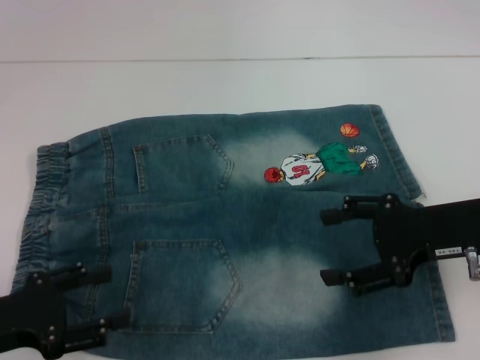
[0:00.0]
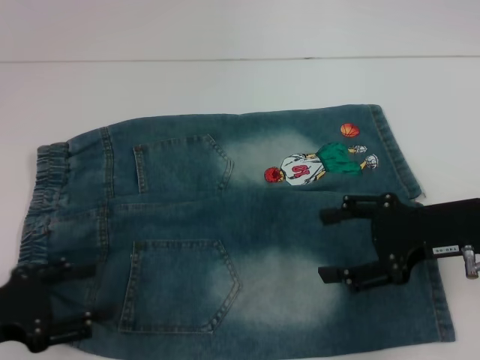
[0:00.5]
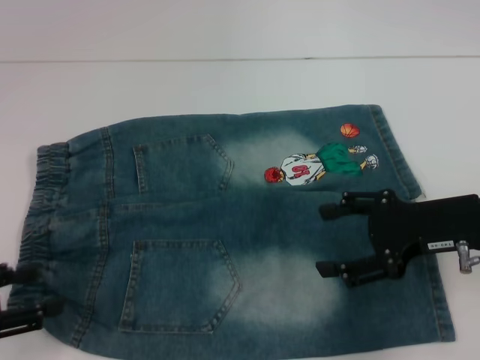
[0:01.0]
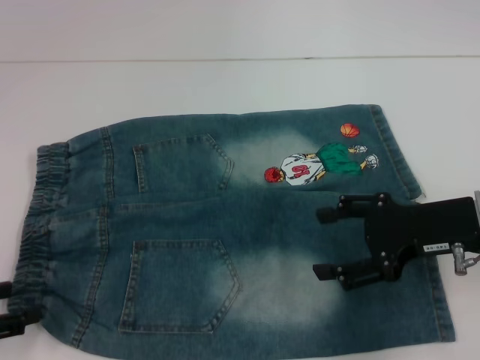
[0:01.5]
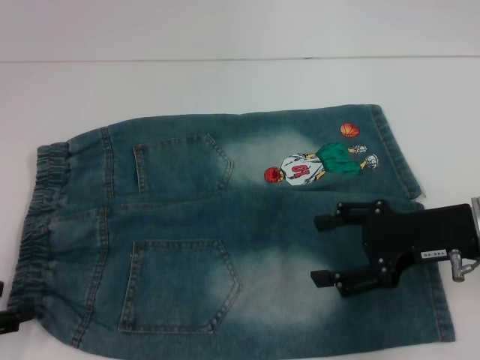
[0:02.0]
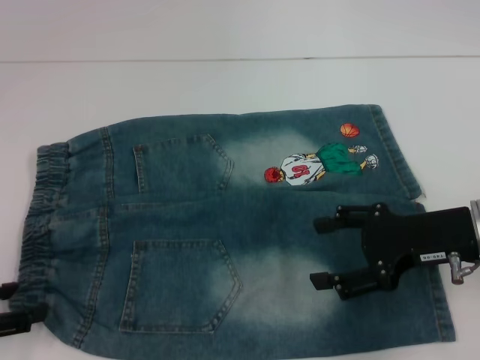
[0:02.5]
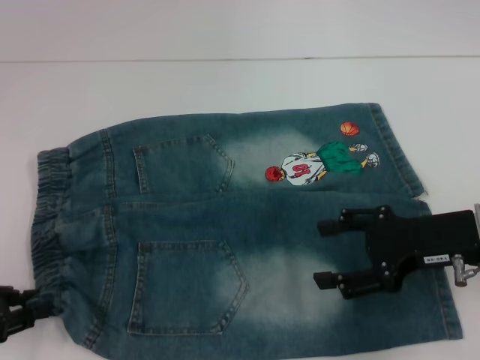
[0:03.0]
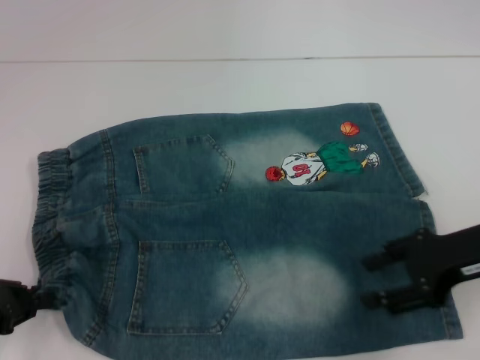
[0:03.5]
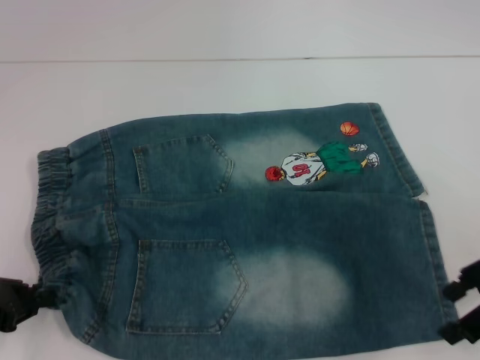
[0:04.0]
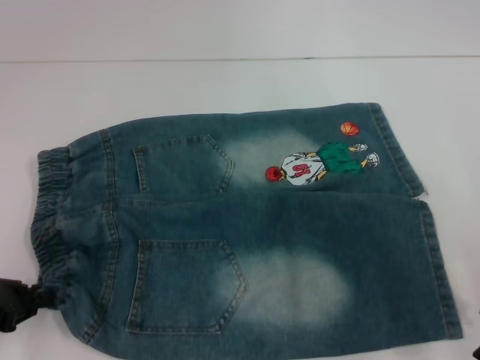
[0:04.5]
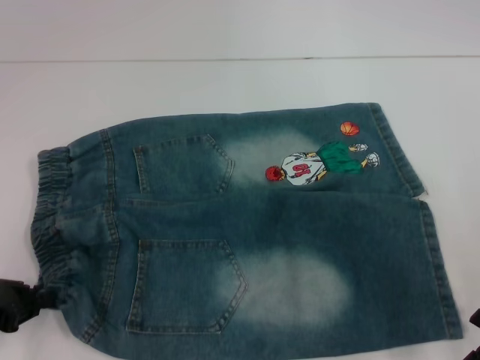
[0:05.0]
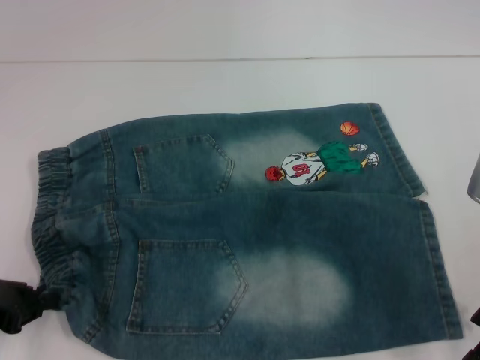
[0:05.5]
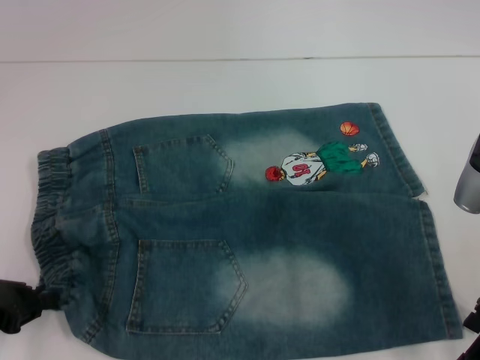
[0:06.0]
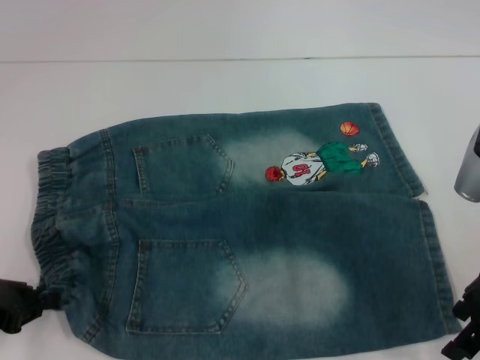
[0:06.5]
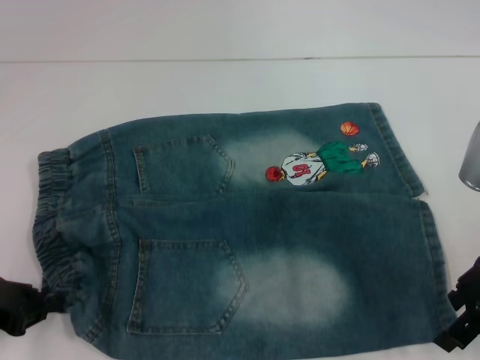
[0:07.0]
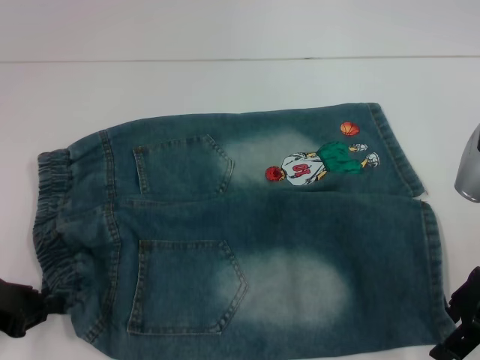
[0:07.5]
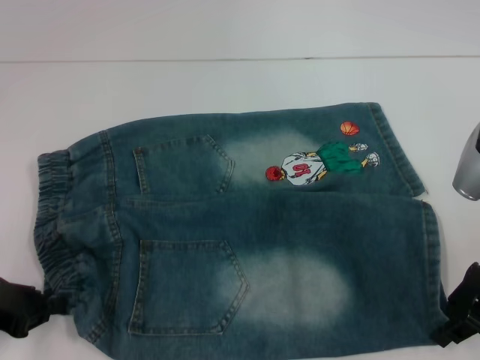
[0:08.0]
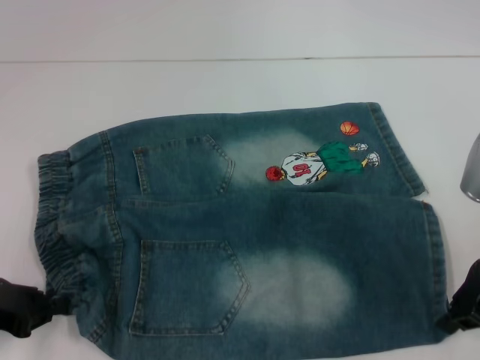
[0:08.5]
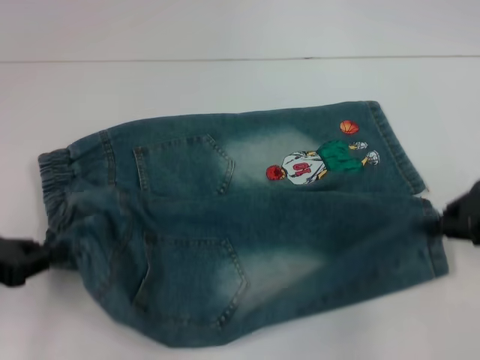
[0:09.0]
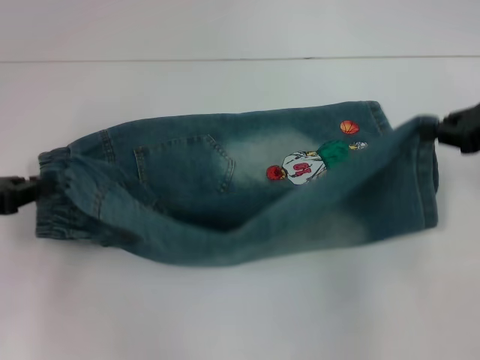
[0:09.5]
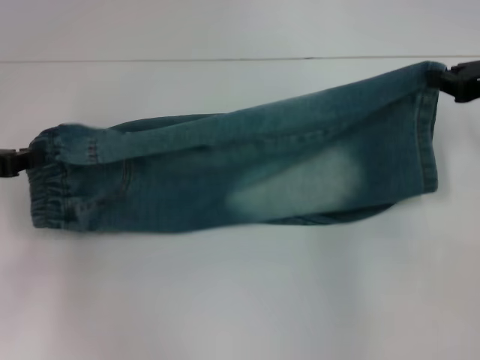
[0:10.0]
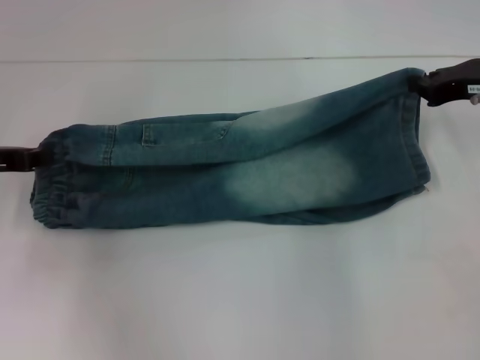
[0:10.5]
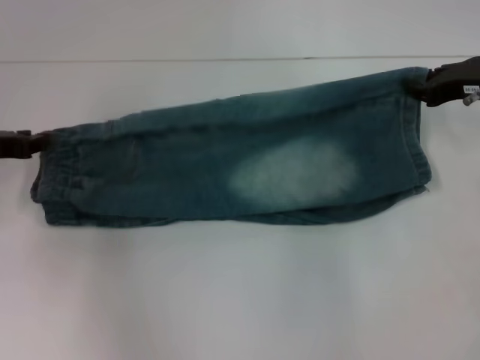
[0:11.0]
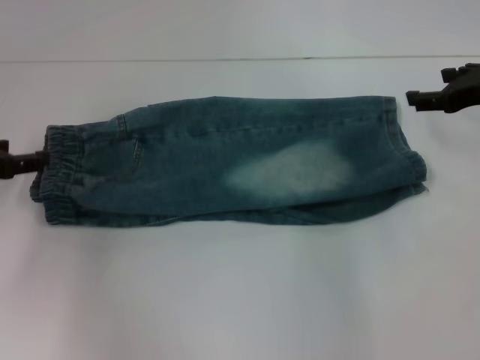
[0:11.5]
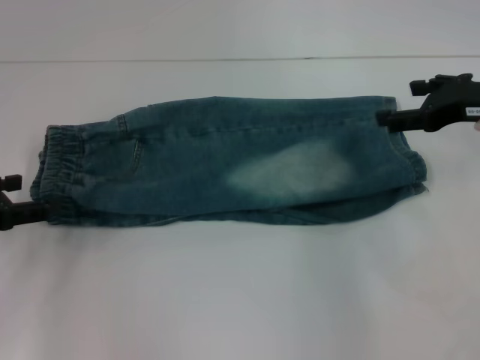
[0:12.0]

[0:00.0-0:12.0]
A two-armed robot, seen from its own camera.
Step, 0:00.0 to 0:03.0: Hold the lower left waistband with your left hand.
Step, 0:03.5 to 0:08.0: Grab the lower right pant leg with your right hand.
Step, 0:08.5 to 0:11.0: Fold upward with your left hand.
0:00.0 to 0:02.0: The left gripper is displaced to the left by roughly 5 cm.
0:02.0 to 0:04.0: The left gripper closes. Meanwhile the right gripper goes some 5 cm to the right.
0:04.0 to 0:06.0: The grippers make only small movements.
0:06.0 to 0:08.0: The right gripper closes its fingers.
0:08.0 to 0:10.0: The left gripper goes about 10 cm forward and upward. Meanwhile the right gripper is displaced forward and to the right by some 10 cm, and closes up.
0:10.0 to 0:12.0: The left gripper opens its fingers. The right gripper opens its fingers.

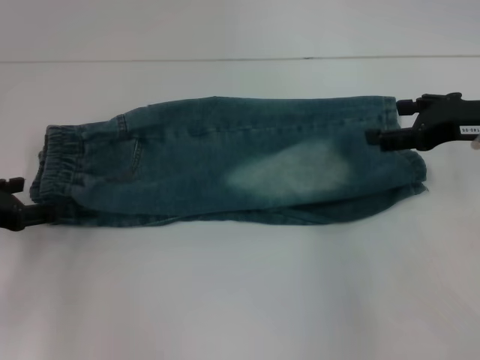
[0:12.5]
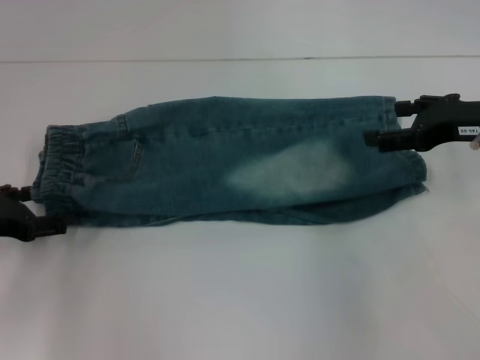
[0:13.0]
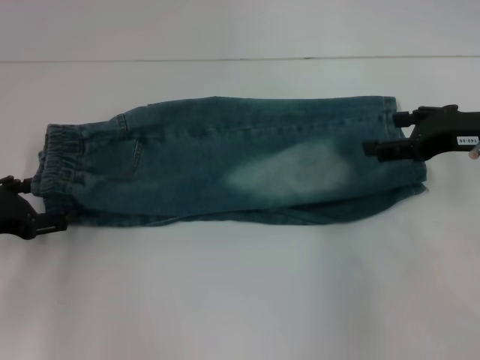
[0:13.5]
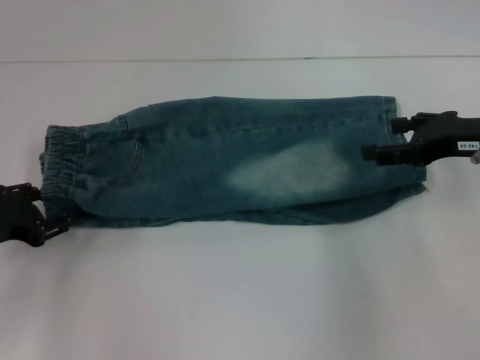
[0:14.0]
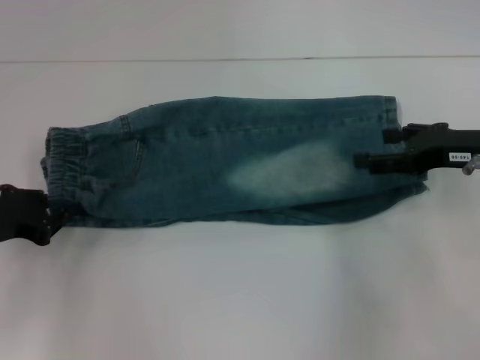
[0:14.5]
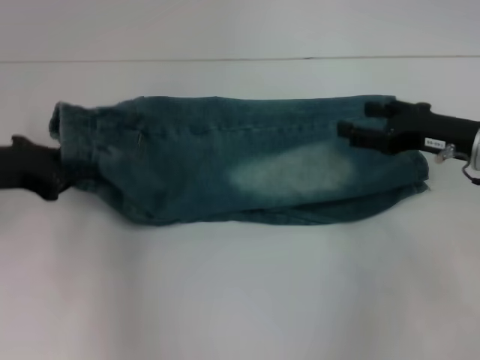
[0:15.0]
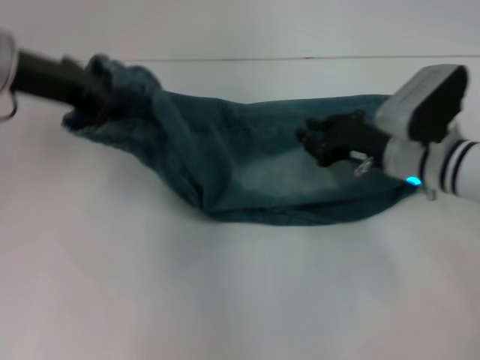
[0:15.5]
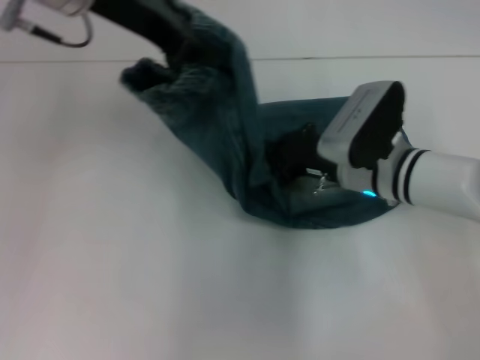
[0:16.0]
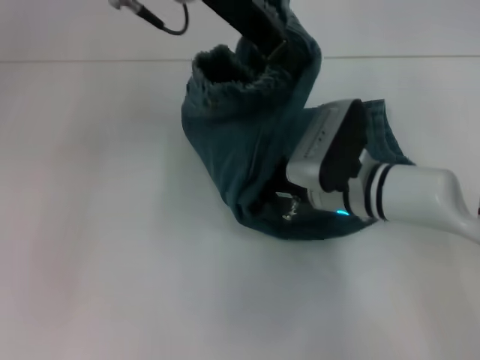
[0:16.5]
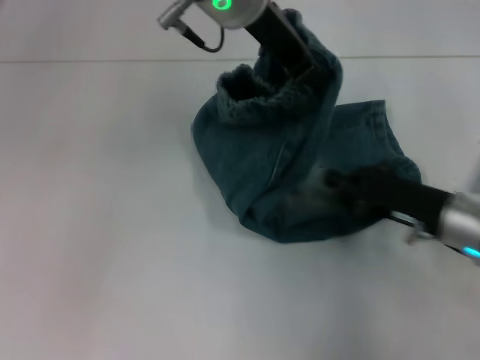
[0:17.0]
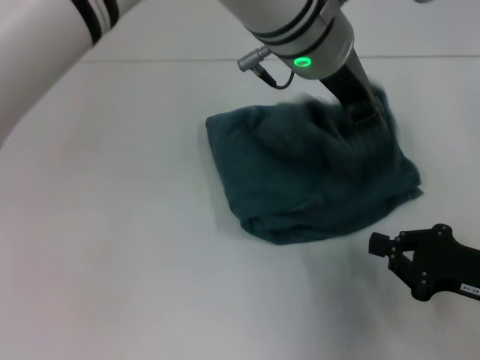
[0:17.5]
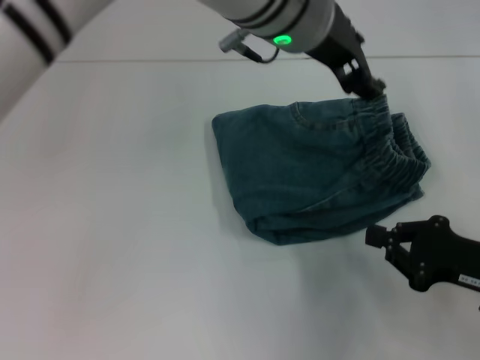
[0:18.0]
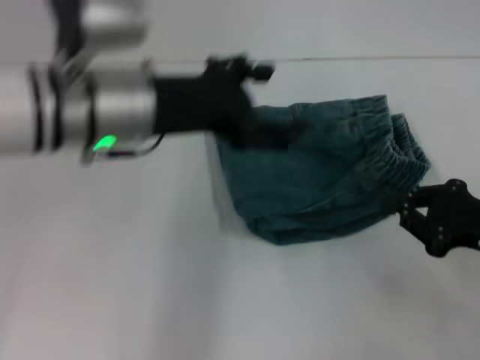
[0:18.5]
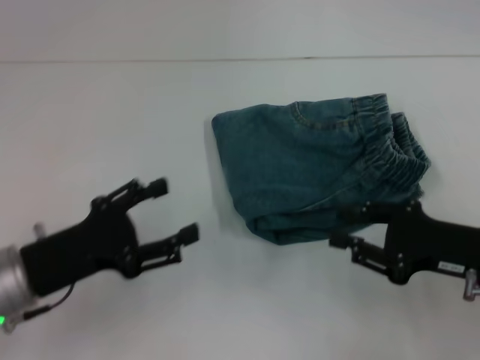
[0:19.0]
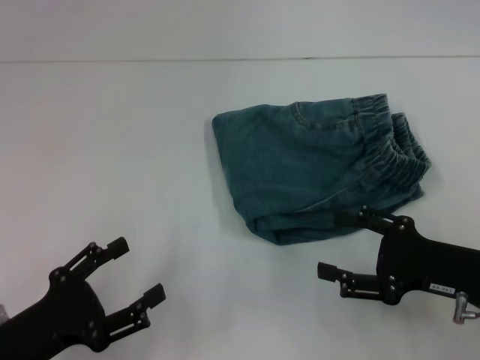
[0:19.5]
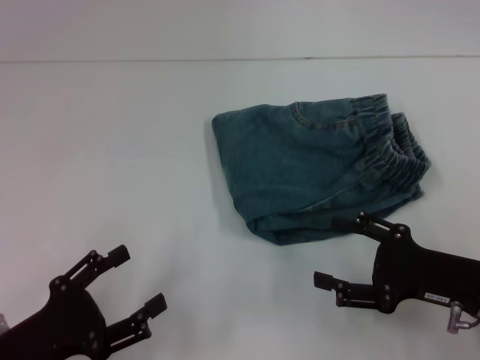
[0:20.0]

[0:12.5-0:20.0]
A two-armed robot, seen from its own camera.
Step, 0:14.5 to 0:16.5: Press the middle of the pants with your right hand.
Step, 0:17.0 to 0:17.5: Fold to the right with your left hand.
0:12.5 to 0:14.5: The left gripper closes.
0:14.5 to 0:16.5: The left gripper shifts roughly 35 cm to the right, upward and forward; the right gripper travels to the left and downward by about 20 cm, and closes.
0:16.5 to 0:18.0: The left gripper shifts about 10 cm to the right, and opens, while the right gripper travels to the right and backward by some 20 cm.
0:18.0 to 0:20.0: The right gripper opens up; the left gripper goes approximately 40 cm to the left, backward and downward, and opens its fingers.

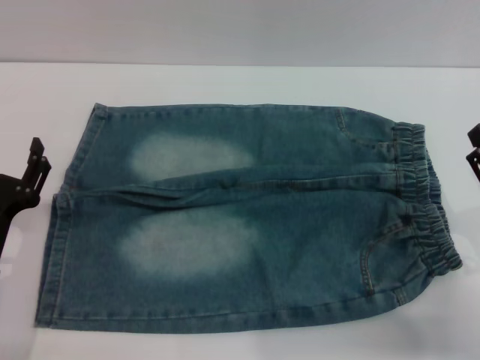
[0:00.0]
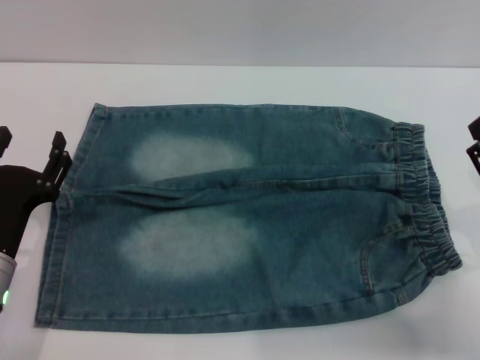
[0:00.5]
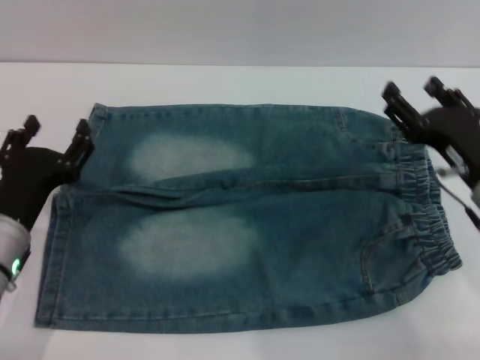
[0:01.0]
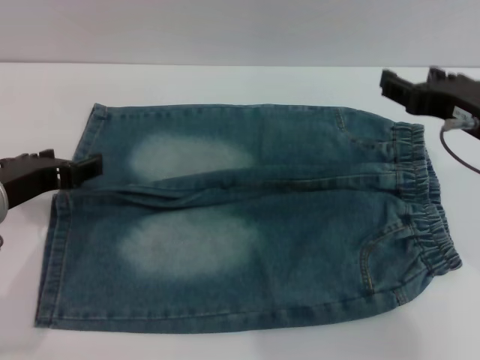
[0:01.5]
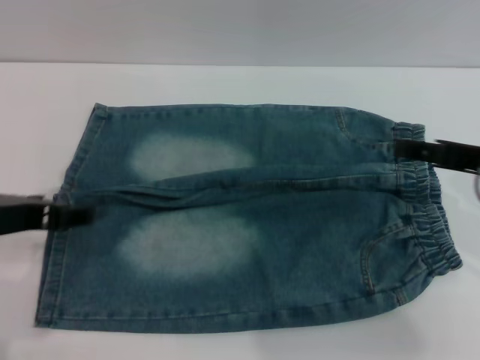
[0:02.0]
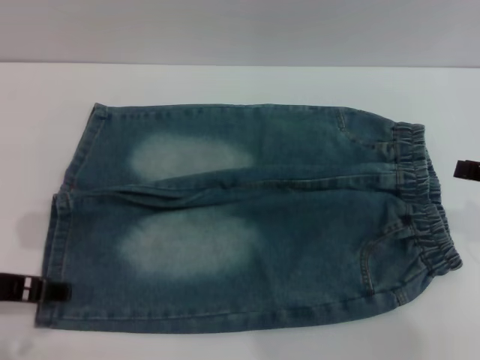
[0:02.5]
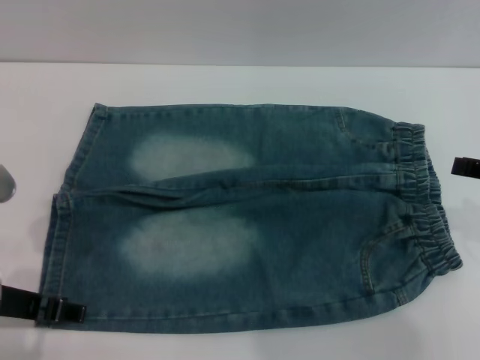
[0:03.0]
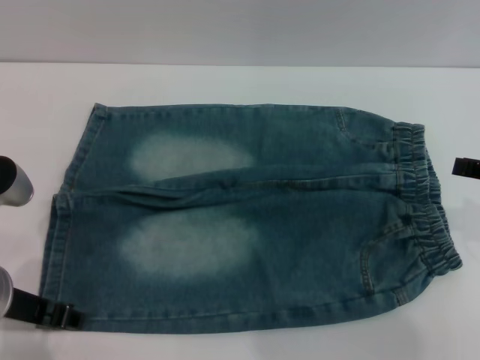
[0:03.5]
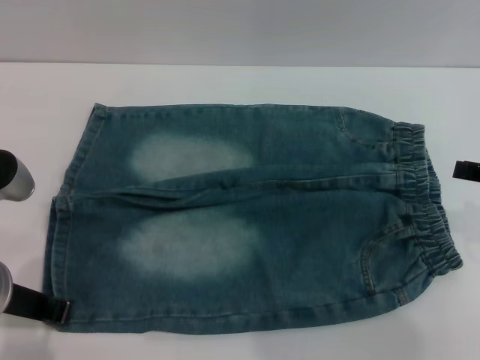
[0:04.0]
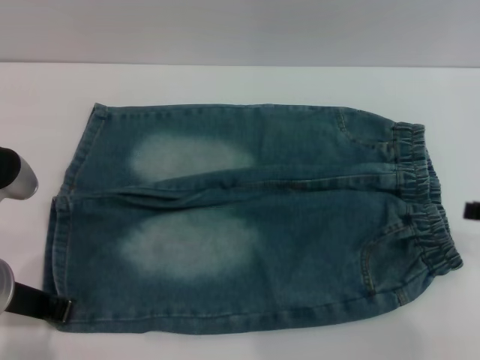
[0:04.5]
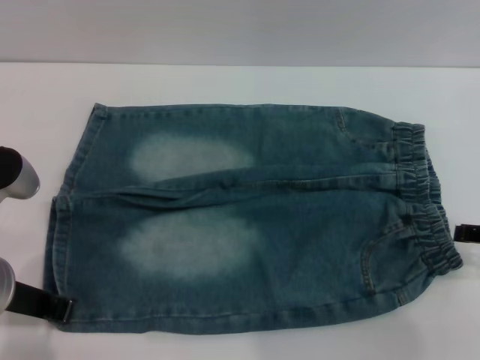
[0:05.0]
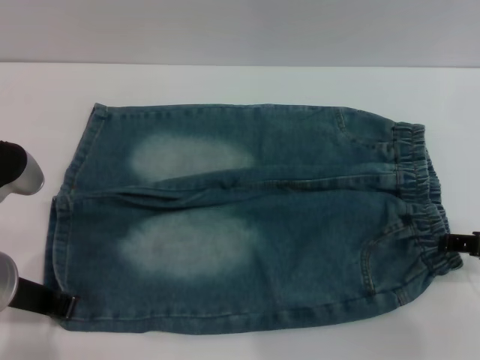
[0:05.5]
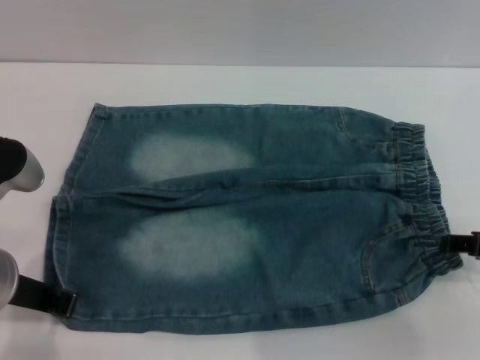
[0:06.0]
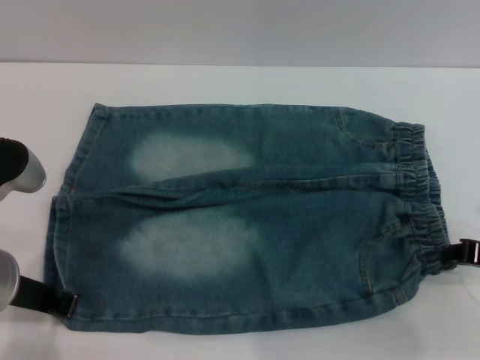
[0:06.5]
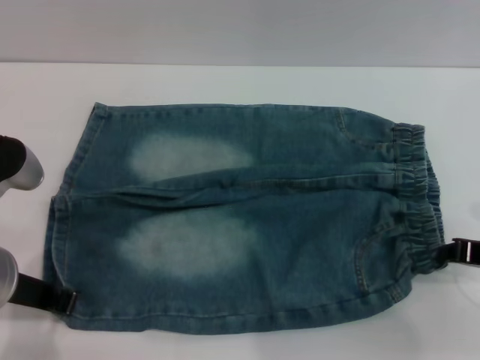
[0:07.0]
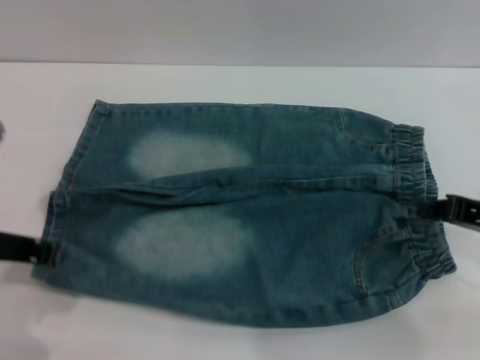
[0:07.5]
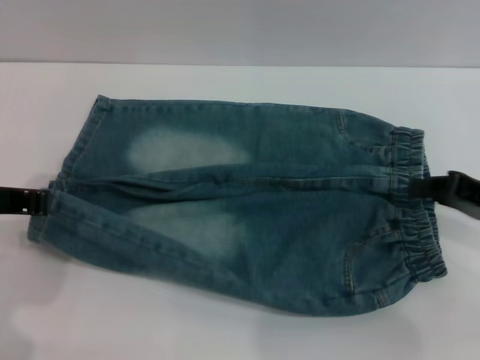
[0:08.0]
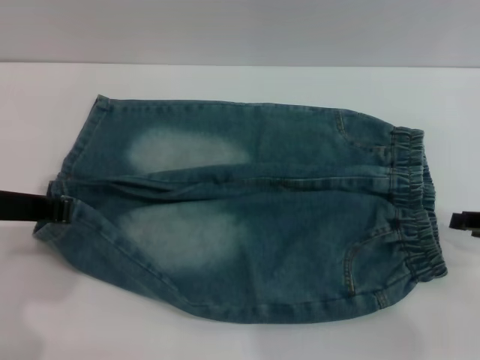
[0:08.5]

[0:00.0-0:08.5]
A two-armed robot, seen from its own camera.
0:00.0 to 0:02.0: Both grippers travel together upward, approximately 15 cm.
0:02.0 to 0:04.0: The left gripper closes its fingers. Meanwhile the right gripper shifts by approximately 5 cm.
0:04.0 to 0:06.5: The right gripper shifts about 10 cm downward, and closes its fingers.
0:06.5 to 0:08.5: The left gripper ends up approximately 5 cm from where it was.
